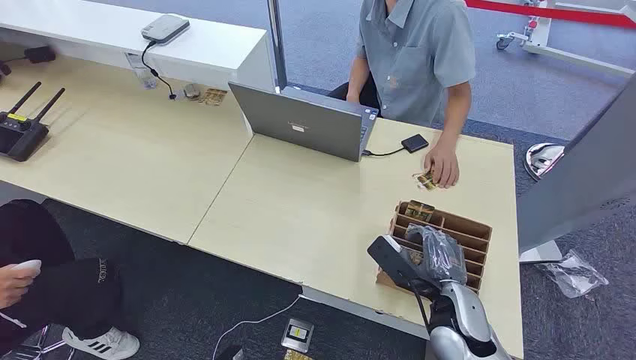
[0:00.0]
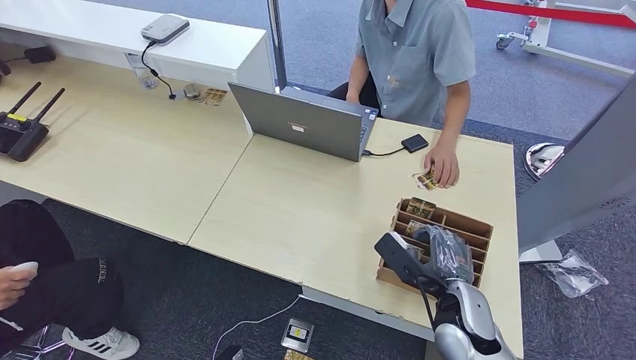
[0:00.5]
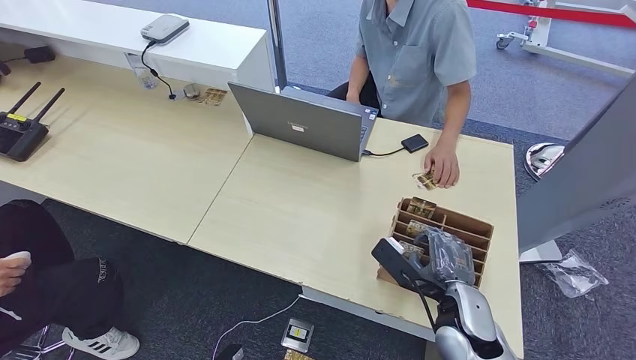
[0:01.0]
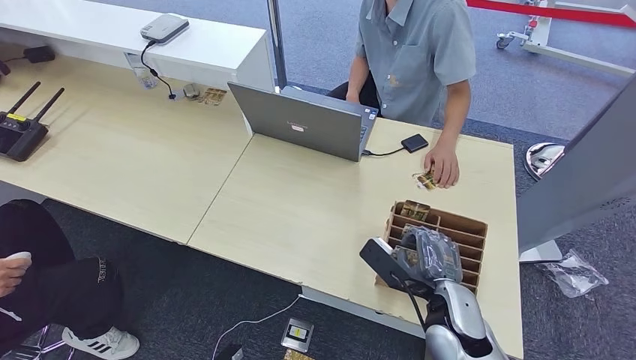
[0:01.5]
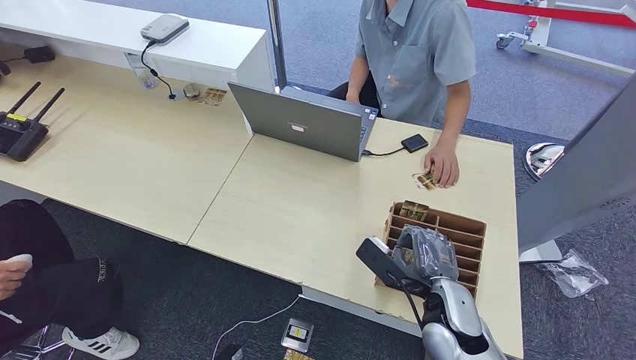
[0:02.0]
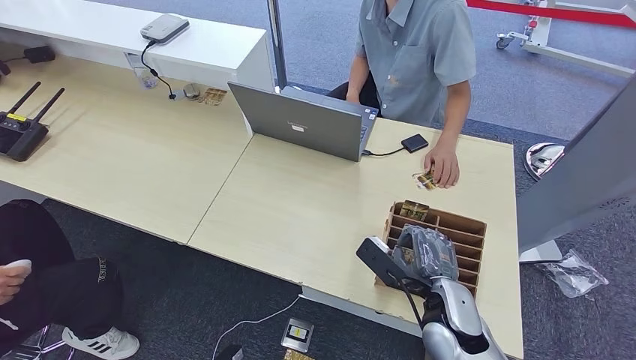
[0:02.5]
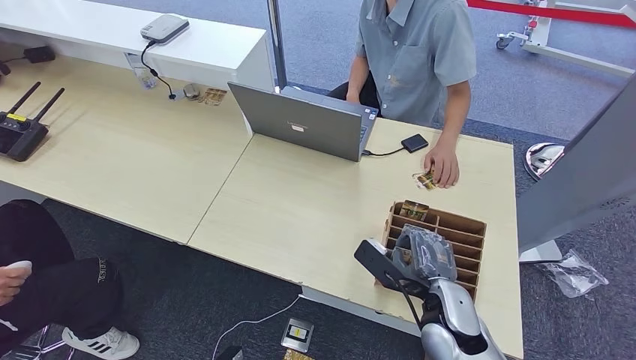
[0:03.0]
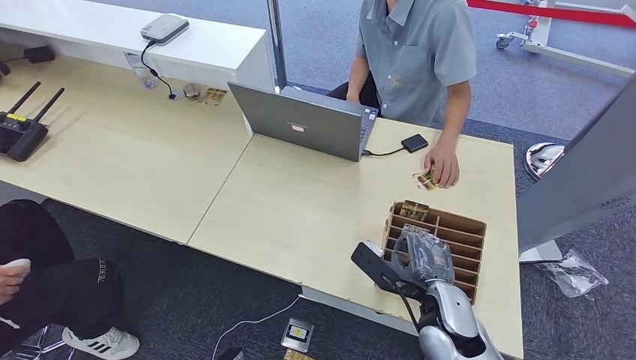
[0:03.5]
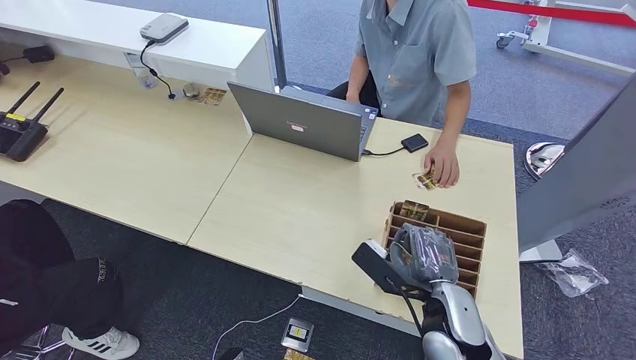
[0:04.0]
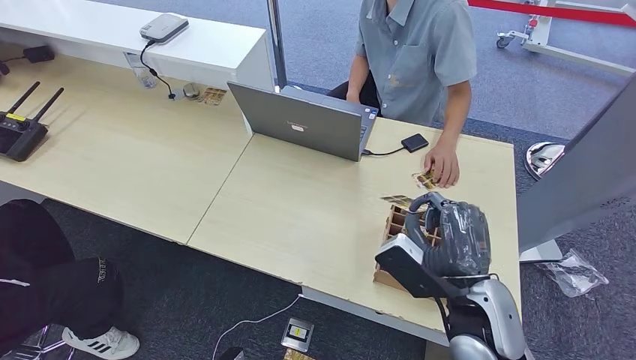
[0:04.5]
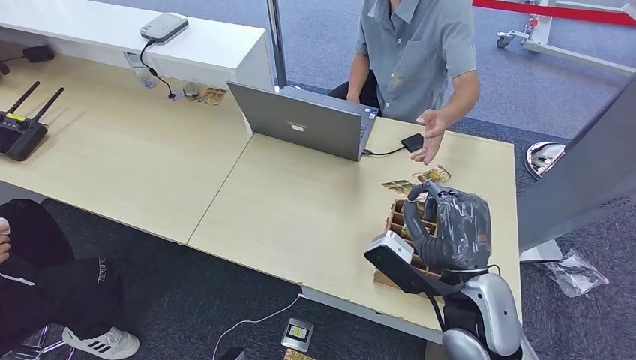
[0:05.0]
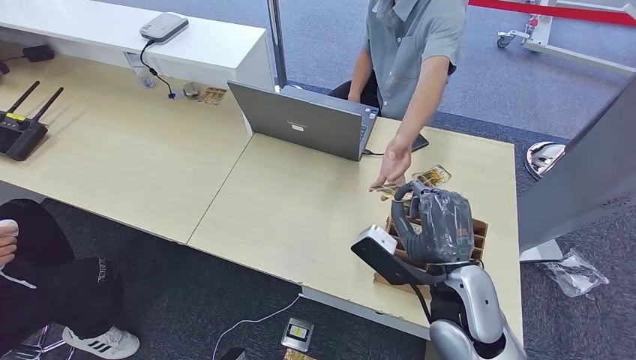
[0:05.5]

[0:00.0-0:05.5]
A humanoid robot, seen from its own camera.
Step, 0:00.0 to 0:04.0: Pick up the key card from the card box.
Step, 0:04.5 to 0:05.5: Hand the key card to the target.
0:02.0 to 0:03.5: The two hands keep their place.
0:03.5 to 0:05.5: The right hand moves upward, about 10 cm.

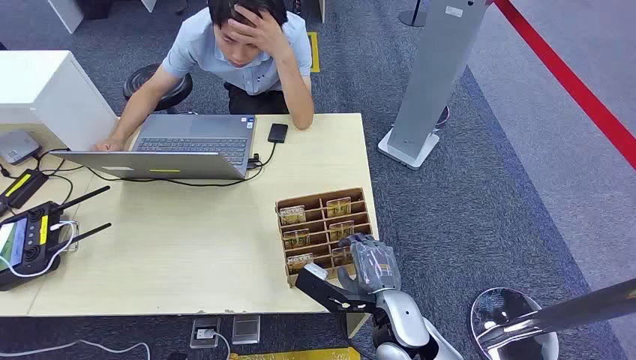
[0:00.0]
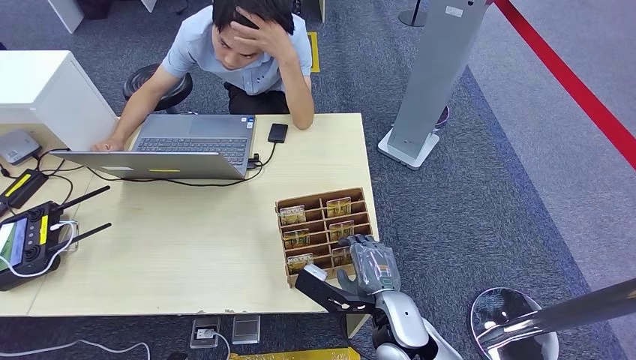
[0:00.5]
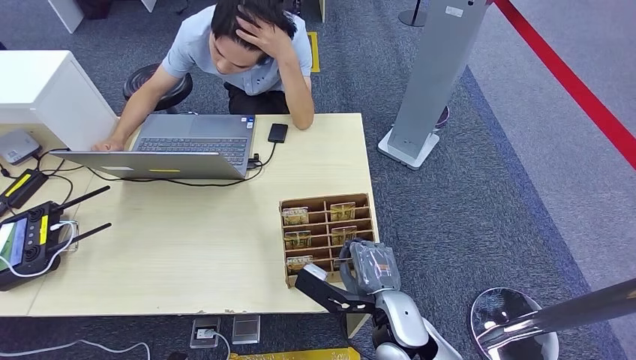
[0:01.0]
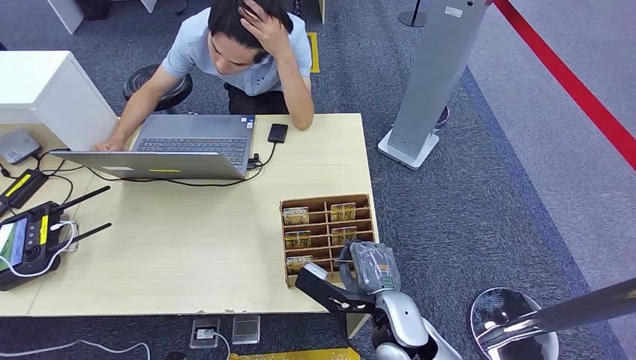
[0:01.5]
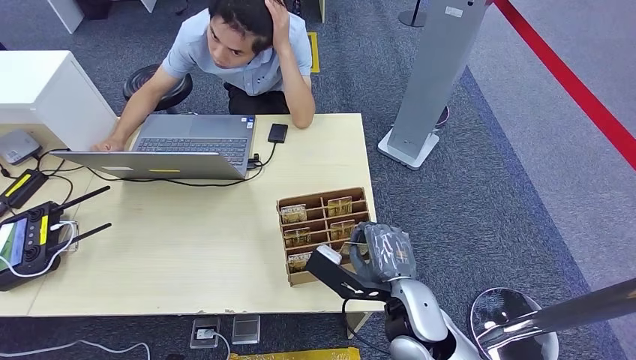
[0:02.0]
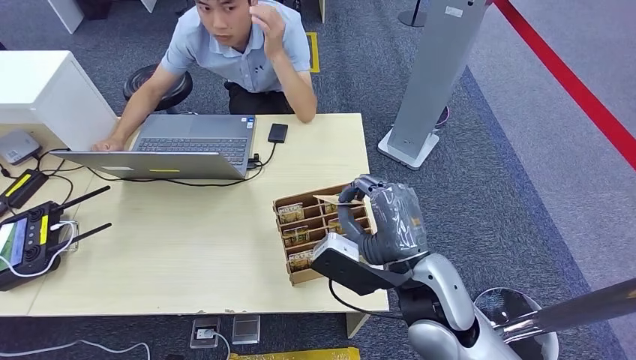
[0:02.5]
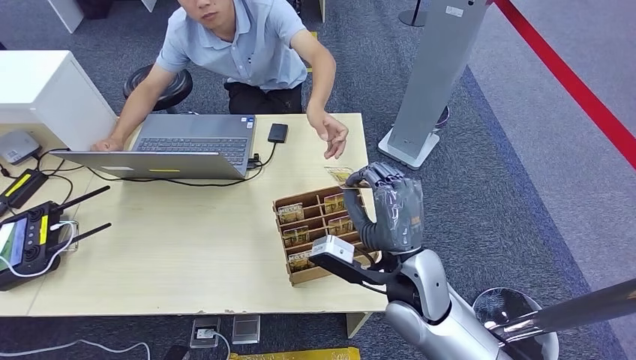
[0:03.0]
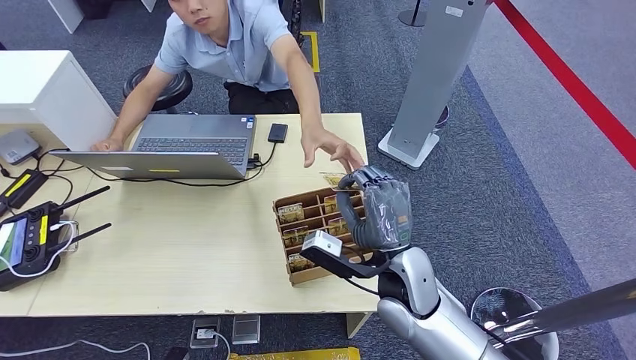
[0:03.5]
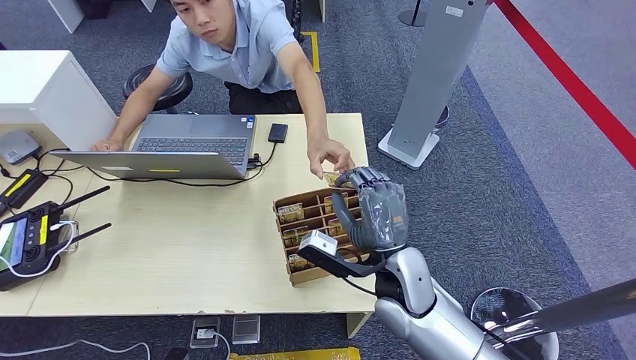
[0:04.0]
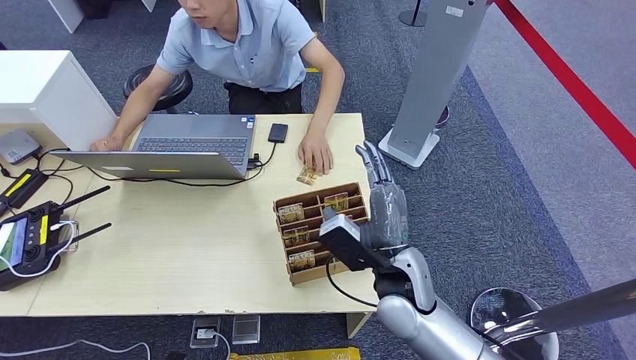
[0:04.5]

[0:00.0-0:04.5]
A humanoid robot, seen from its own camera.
Step, 0:00.0 to 0:02.0: Pick up the key card from the card box.
Step, 0:03.0 to 0:04.5: Hand the key card to the target.
0:02.0 to 0:04.5: The right hand is displaced forward by roughly 5 cm, and goes upward and returns, approximately 10 cm each way.
